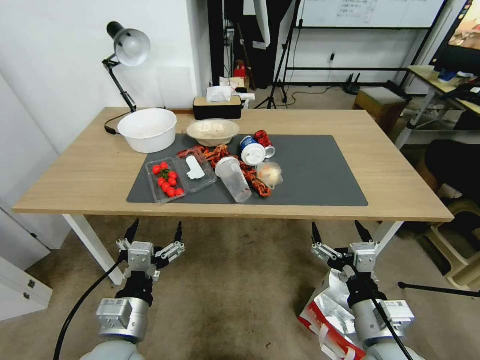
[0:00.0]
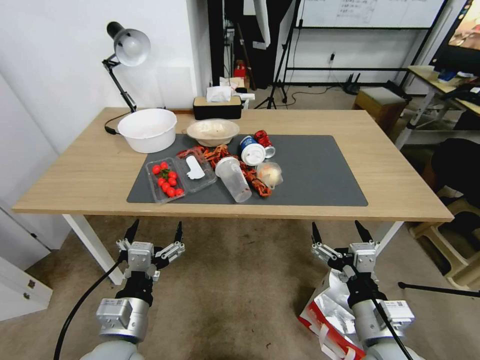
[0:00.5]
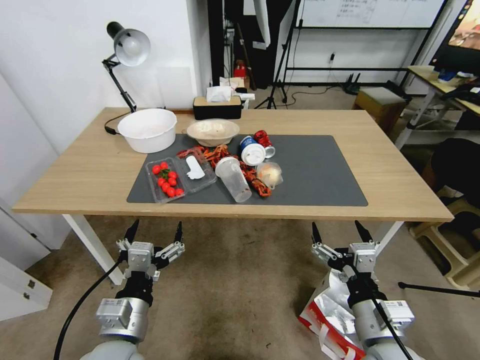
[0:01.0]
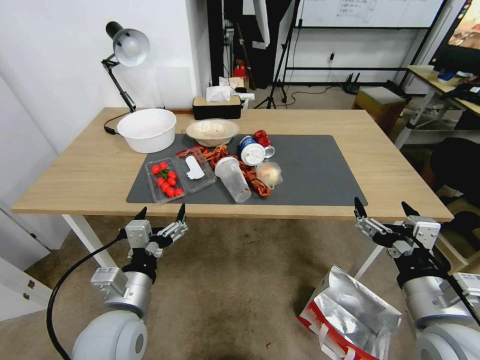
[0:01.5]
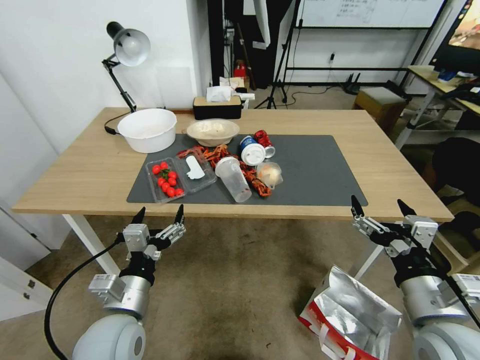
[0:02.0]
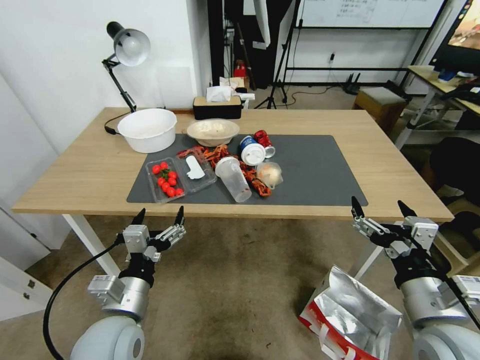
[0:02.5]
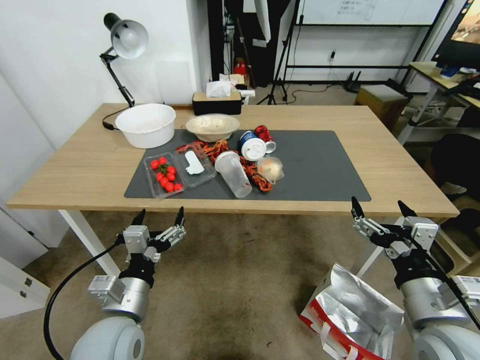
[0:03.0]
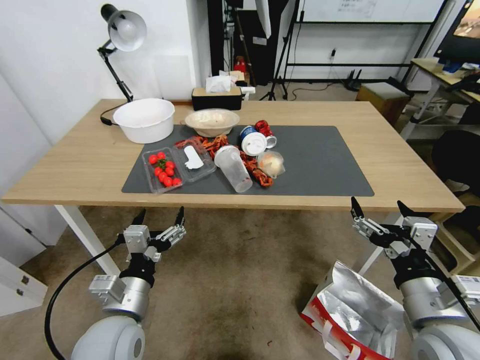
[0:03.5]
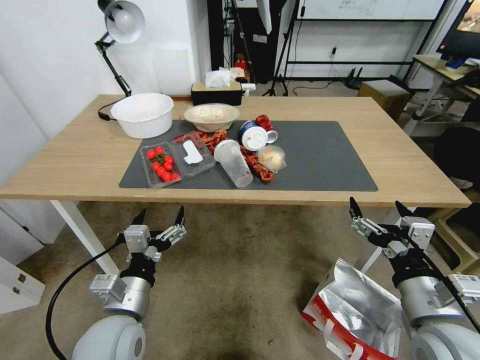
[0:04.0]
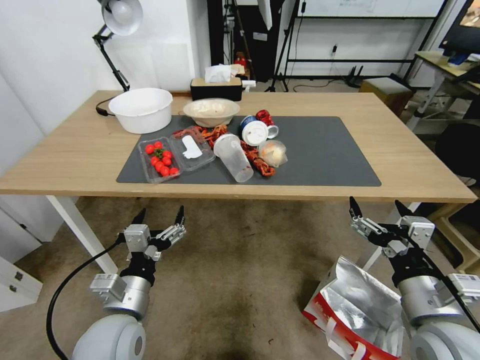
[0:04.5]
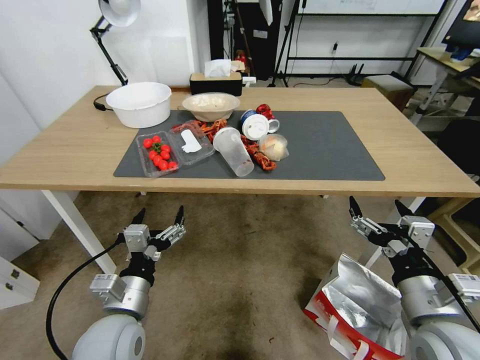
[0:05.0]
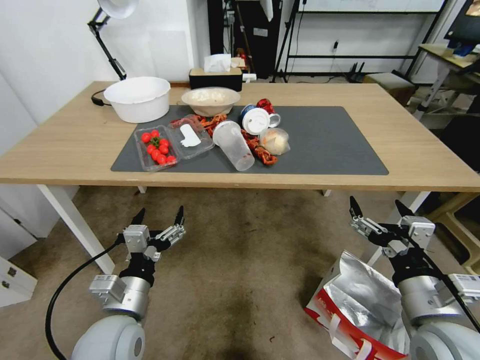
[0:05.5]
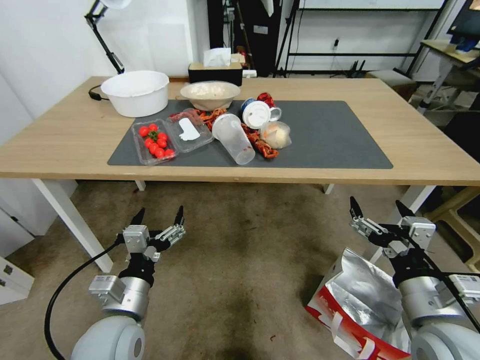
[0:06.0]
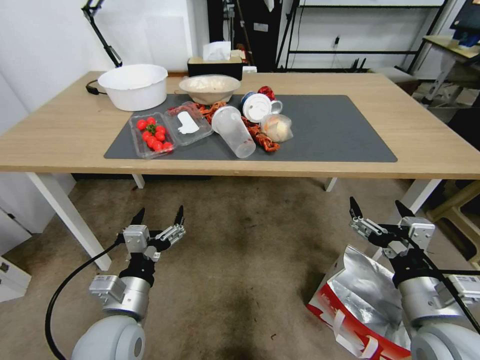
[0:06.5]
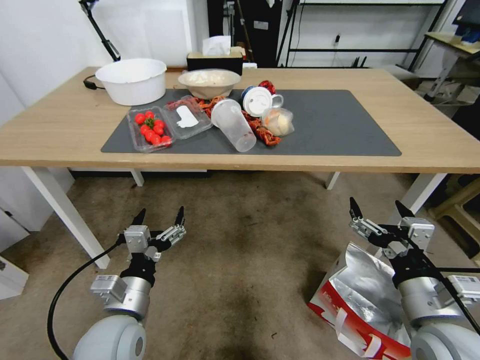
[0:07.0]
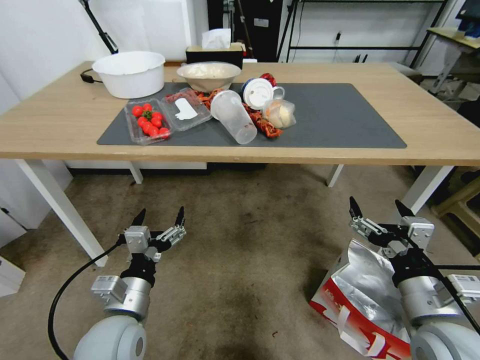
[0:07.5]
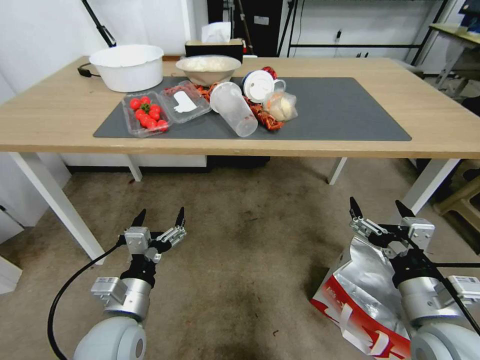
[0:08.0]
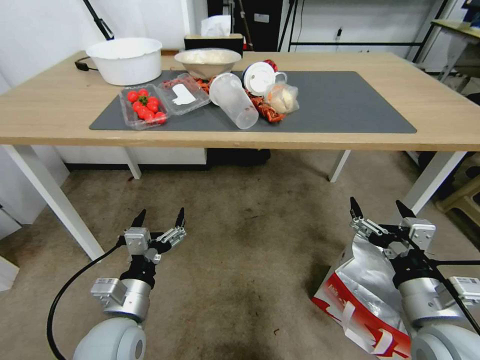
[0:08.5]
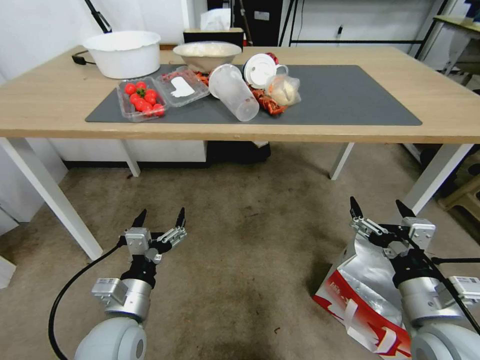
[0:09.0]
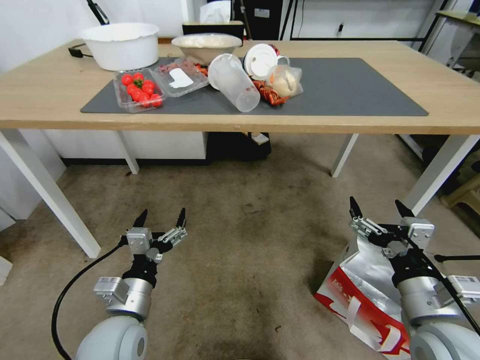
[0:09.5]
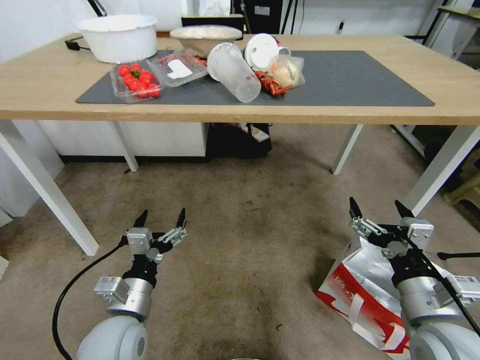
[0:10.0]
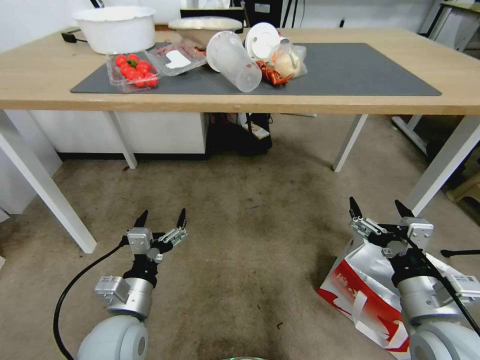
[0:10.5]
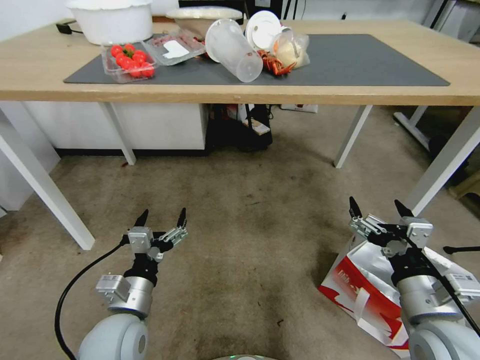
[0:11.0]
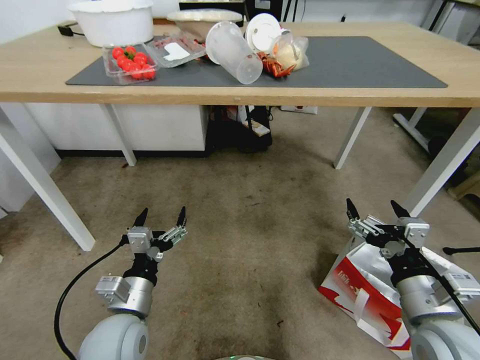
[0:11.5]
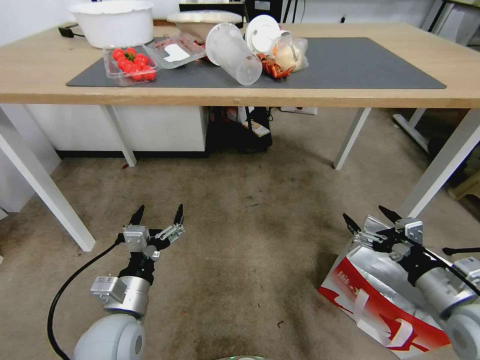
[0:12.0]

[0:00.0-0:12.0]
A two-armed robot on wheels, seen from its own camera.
Task of the whole recording: Pick up the food delivery bag from the floor and place it on the table.
0:10.0 to 0:12.0: The right gripper is displaced to the right by roughly 10 cm.

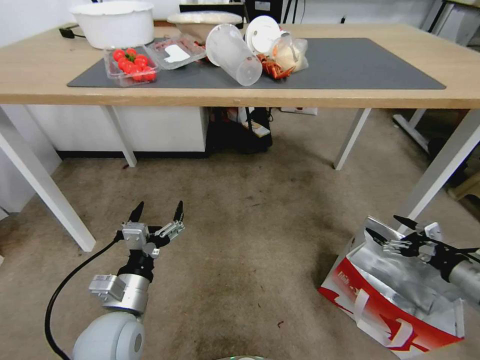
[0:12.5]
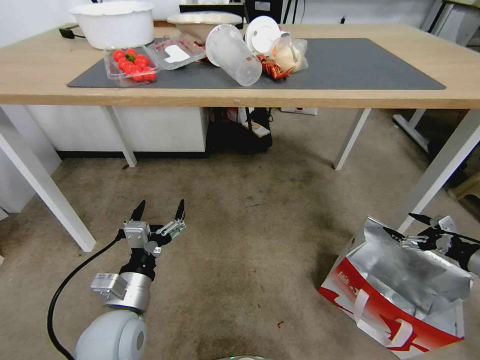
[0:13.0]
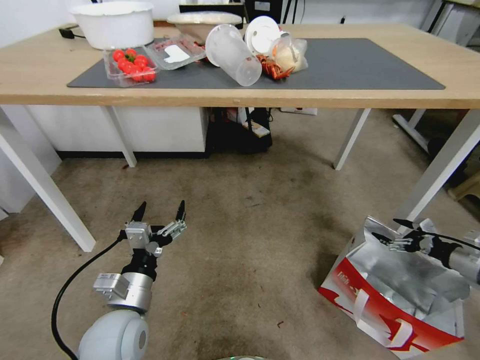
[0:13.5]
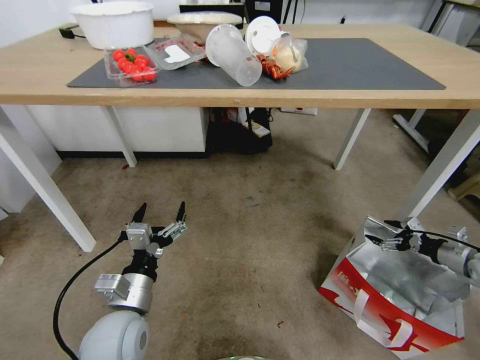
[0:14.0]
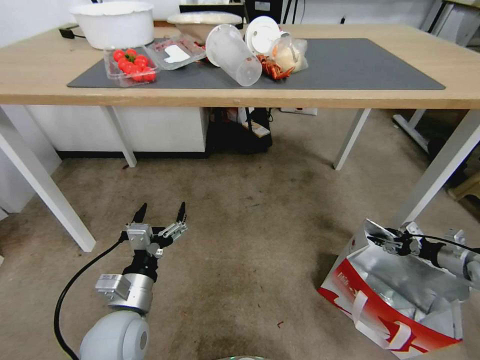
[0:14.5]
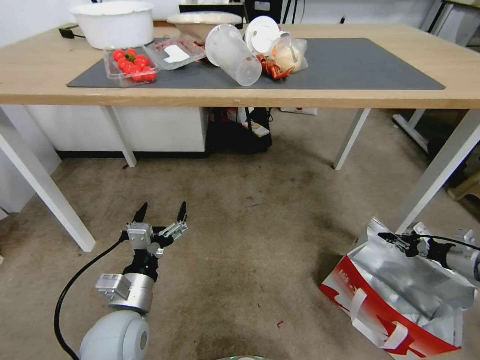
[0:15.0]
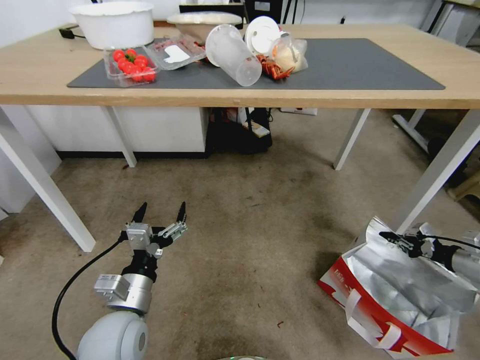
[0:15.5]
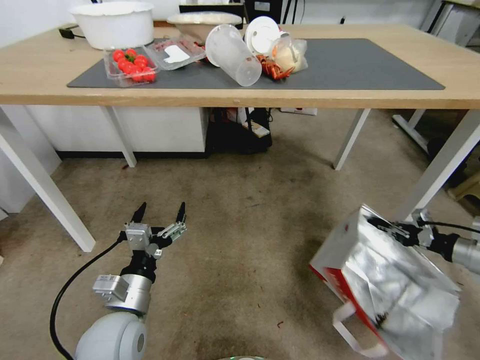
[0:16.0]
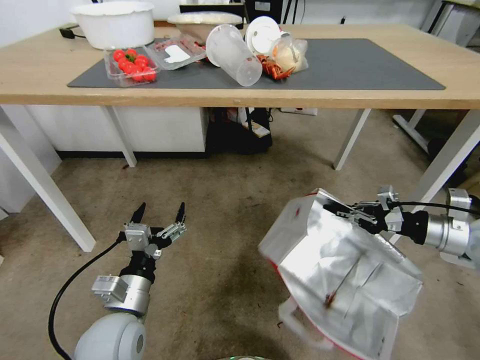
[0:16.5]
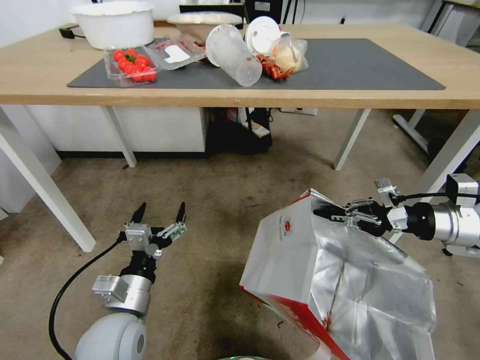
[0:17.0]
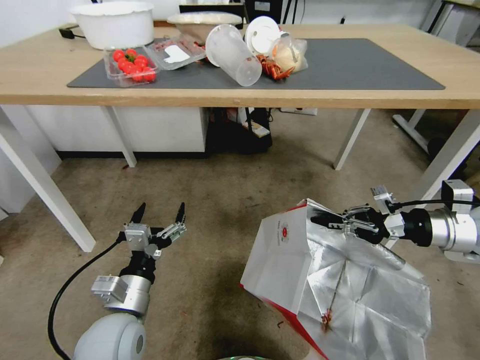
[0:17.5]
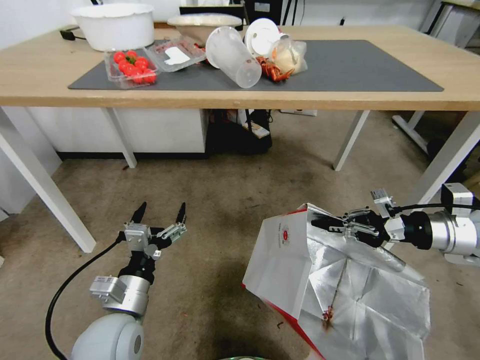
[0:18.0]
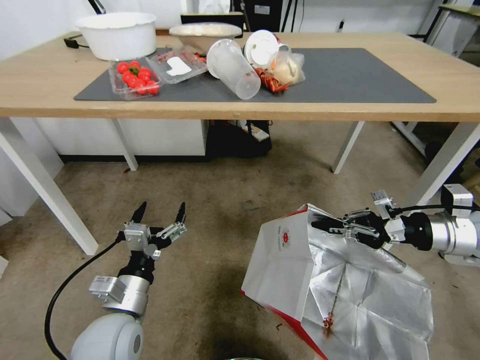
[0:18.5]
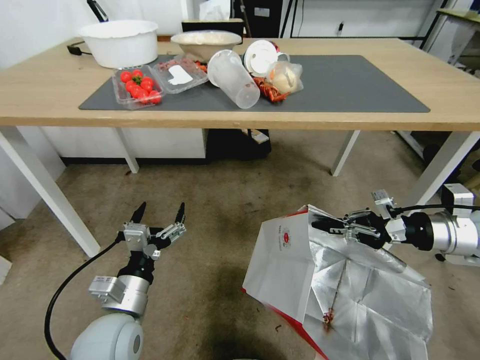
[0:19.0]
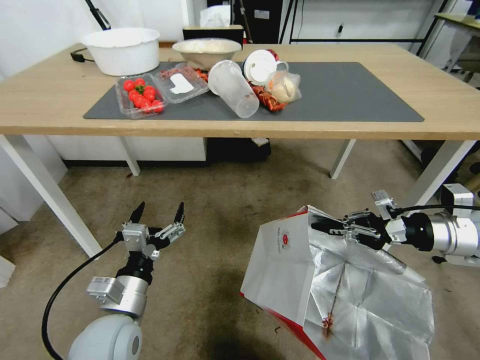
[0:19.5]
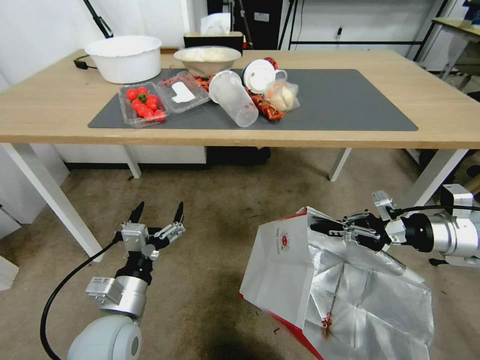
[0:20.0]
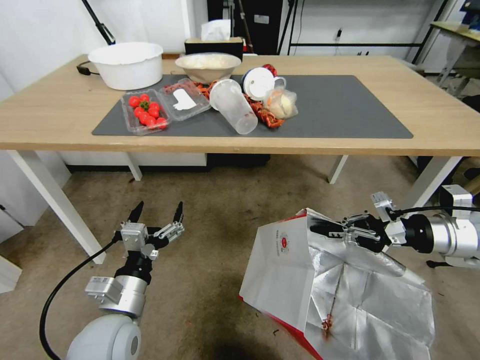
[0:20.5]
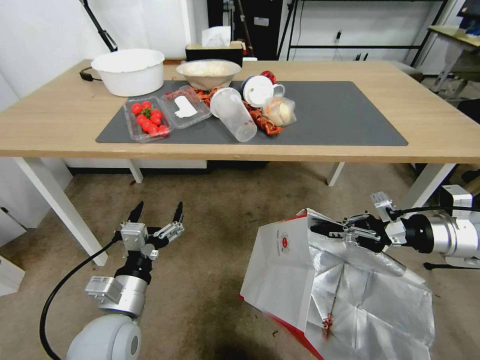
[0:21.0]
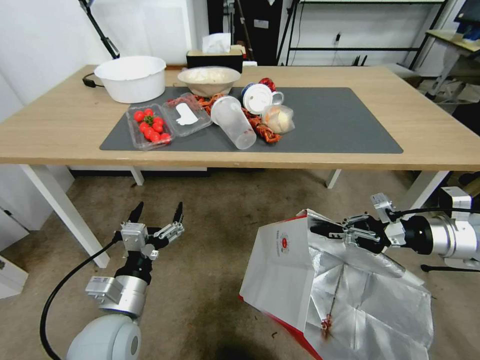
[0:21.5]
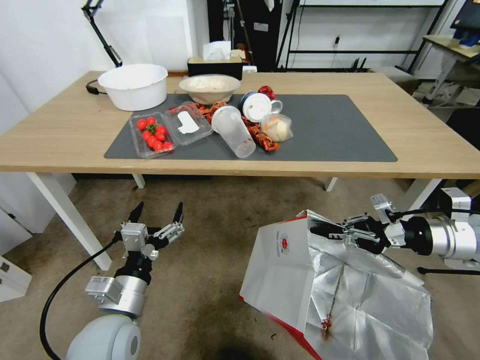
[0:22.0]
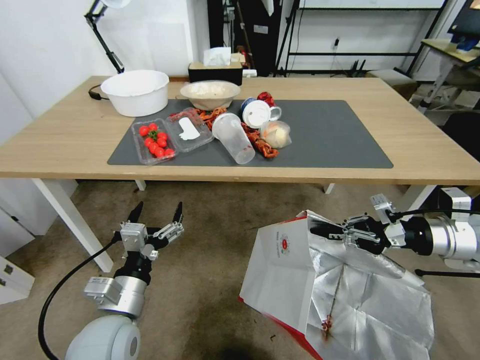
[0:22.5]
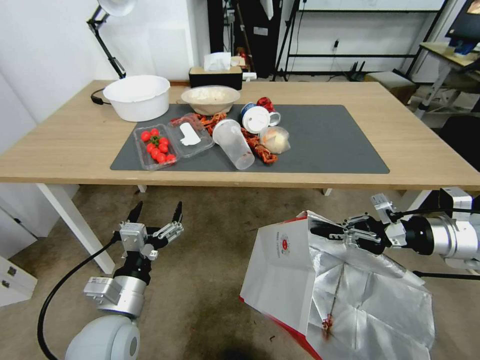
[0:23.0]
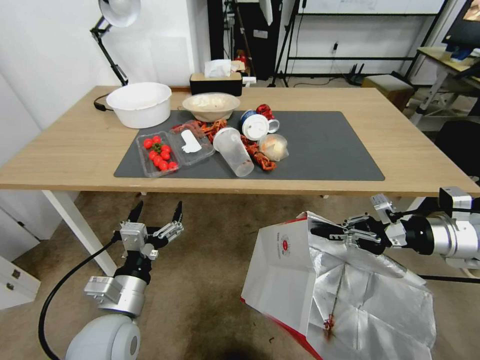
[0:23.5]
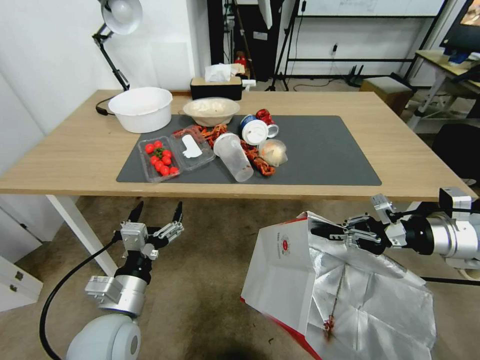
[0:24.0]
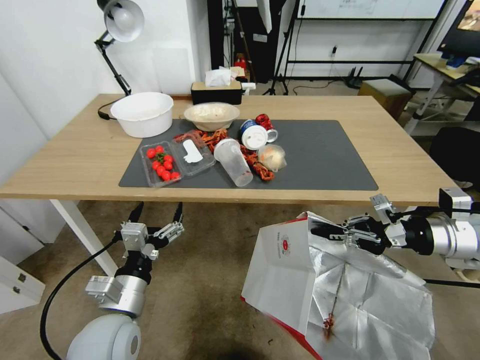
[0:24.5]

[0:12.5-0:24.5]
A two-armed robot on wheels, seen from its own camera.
Task of the whole recording: Pick up the food delivery bag from the floor and place it on the table.
0:12.5 to 0:14.5: The right gripper is displaced to the right, forward and downward by roughly 25 cm, and closes its fingers.
0:14.5 to 0:16.5: The right gripper moves upward and to the left, approximately 20 cm, and closes its fingers.

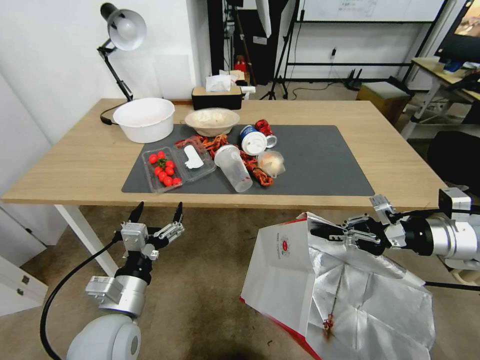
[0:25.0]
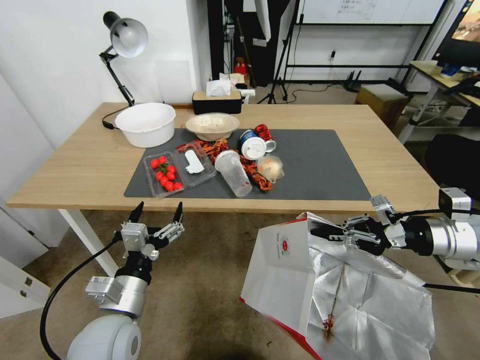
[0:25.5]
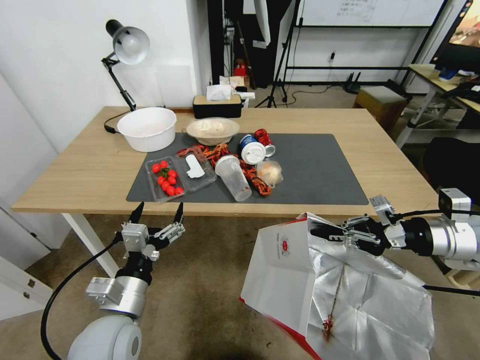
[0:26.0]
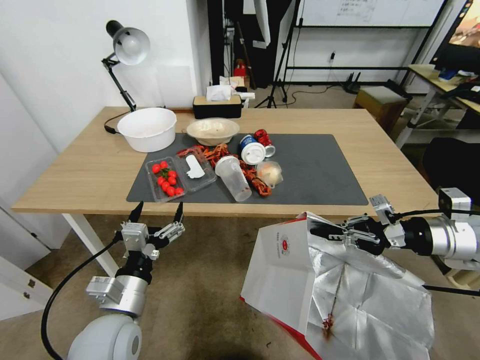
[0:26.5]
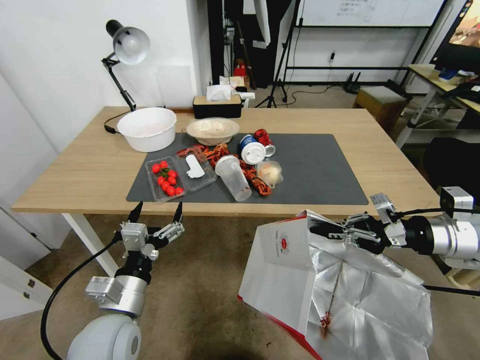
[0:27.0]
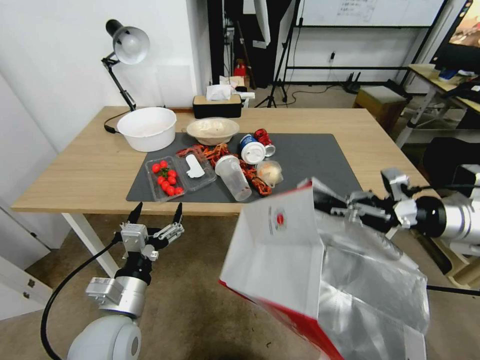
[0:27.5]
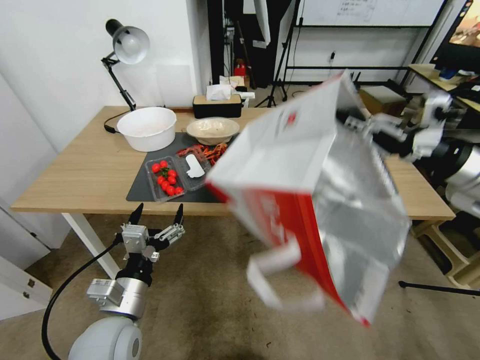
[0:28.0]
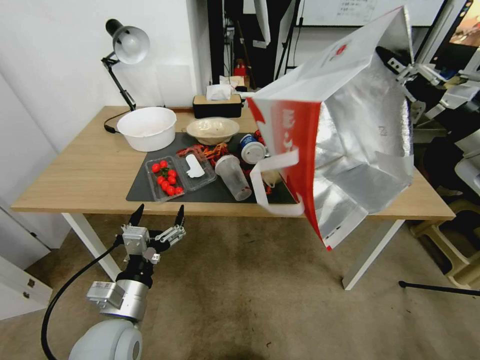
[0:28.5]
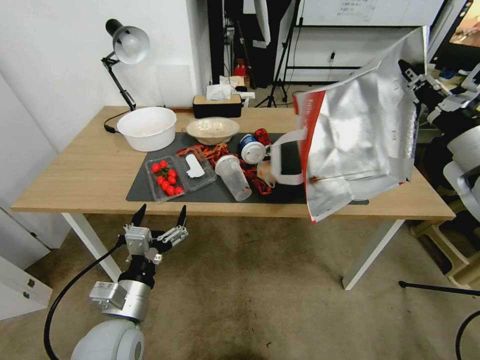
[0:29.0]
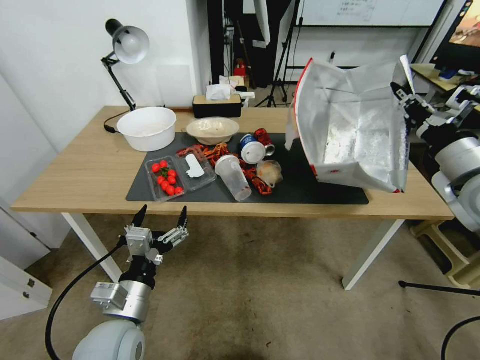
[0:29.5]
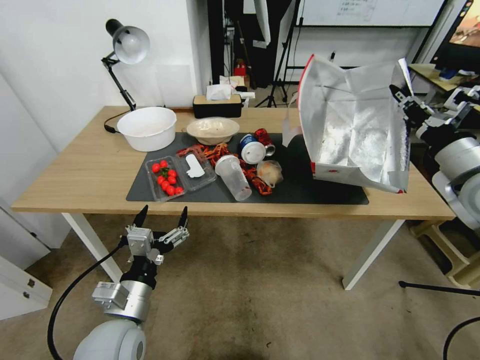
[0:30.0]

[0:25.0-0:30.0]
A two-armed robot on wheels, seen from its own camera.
Task of the whole recording: Pick up the food delivery bag from the floor and place it on the table.
0:27.5 to 0:30.0: The right gripper reaches roughly 10 cm upward, then returns.
